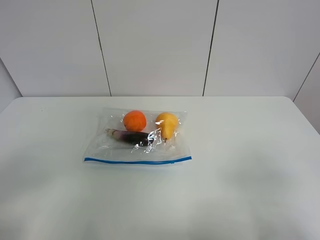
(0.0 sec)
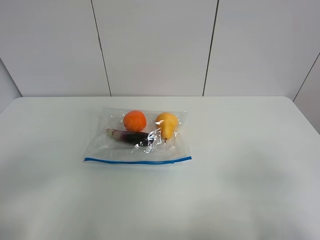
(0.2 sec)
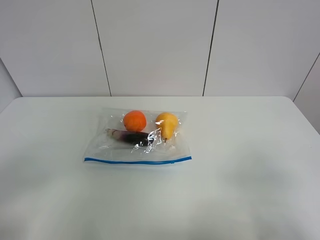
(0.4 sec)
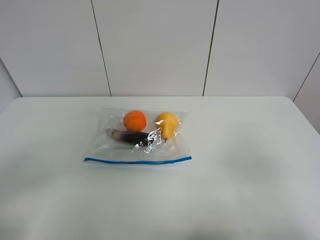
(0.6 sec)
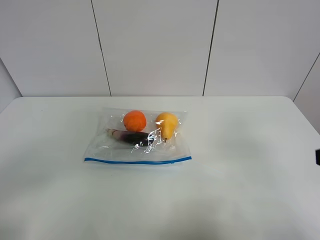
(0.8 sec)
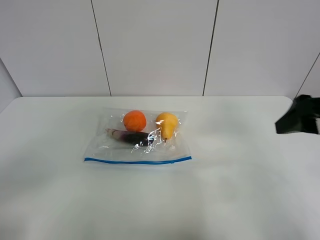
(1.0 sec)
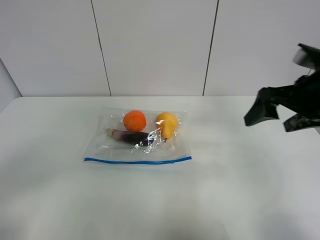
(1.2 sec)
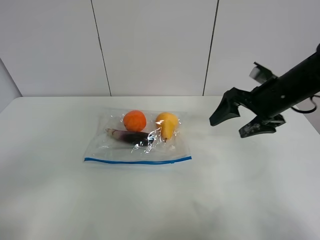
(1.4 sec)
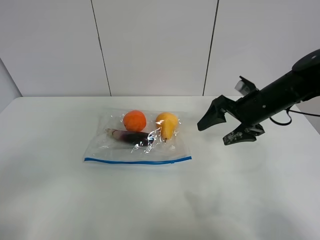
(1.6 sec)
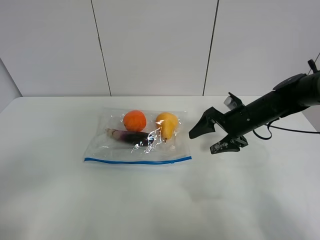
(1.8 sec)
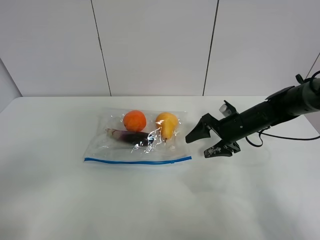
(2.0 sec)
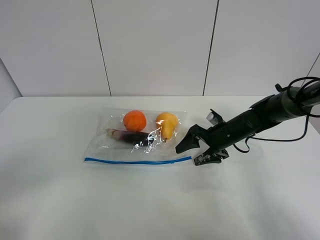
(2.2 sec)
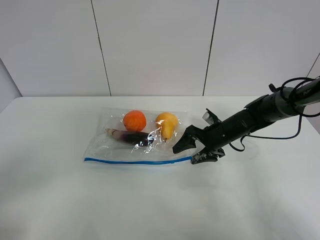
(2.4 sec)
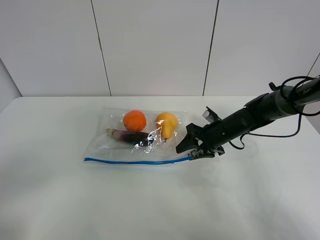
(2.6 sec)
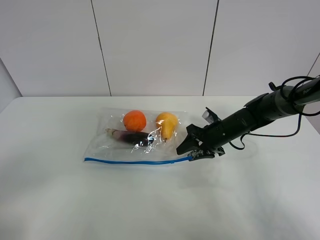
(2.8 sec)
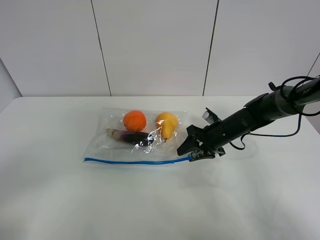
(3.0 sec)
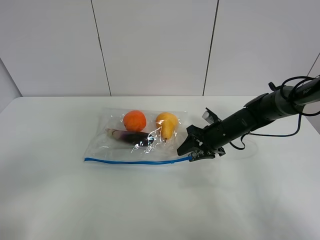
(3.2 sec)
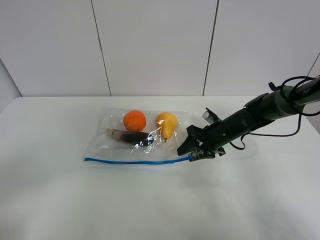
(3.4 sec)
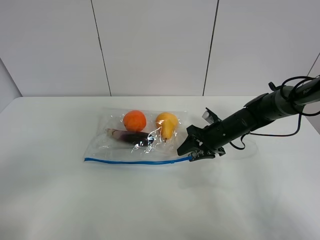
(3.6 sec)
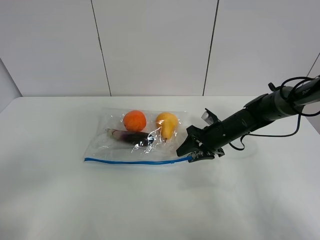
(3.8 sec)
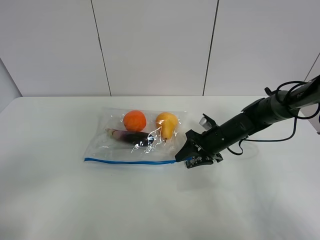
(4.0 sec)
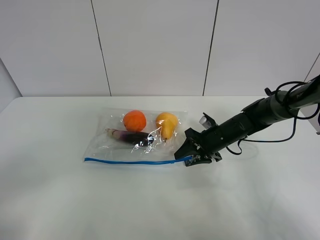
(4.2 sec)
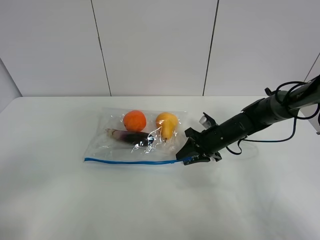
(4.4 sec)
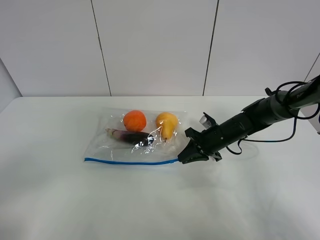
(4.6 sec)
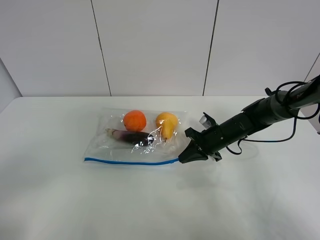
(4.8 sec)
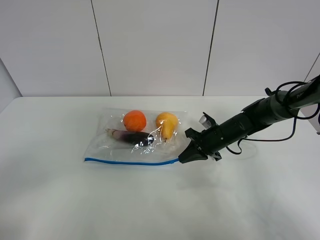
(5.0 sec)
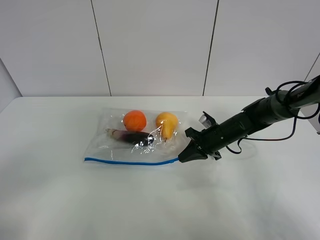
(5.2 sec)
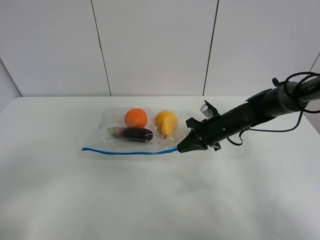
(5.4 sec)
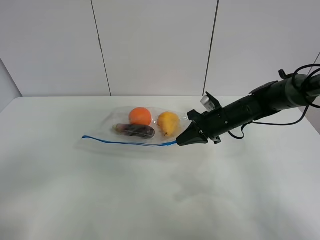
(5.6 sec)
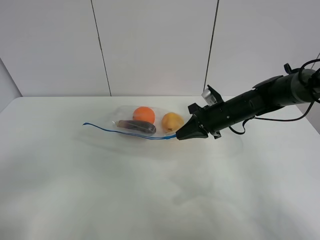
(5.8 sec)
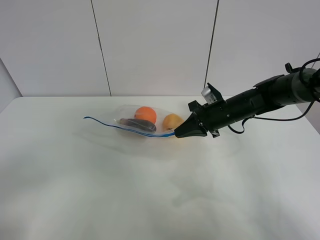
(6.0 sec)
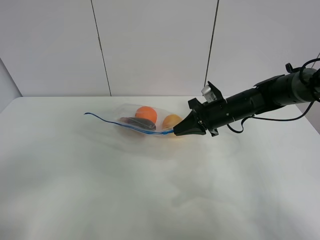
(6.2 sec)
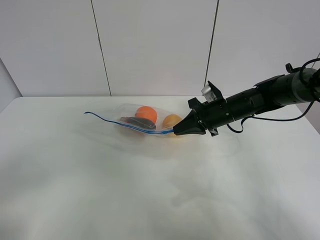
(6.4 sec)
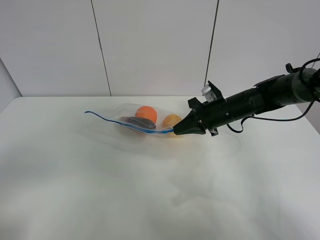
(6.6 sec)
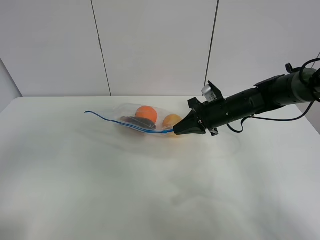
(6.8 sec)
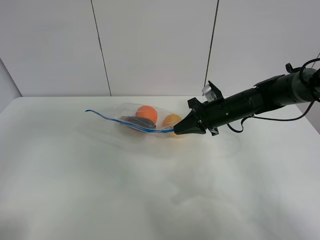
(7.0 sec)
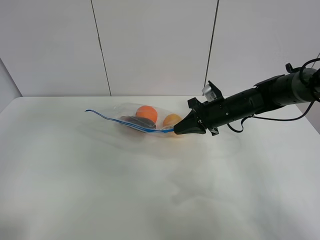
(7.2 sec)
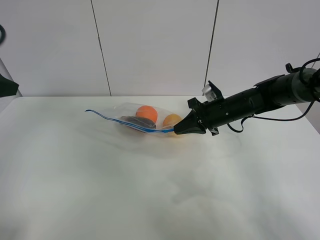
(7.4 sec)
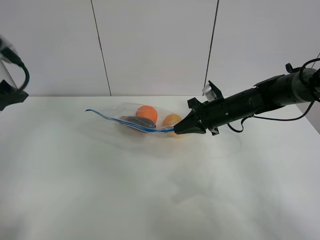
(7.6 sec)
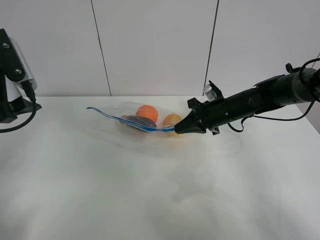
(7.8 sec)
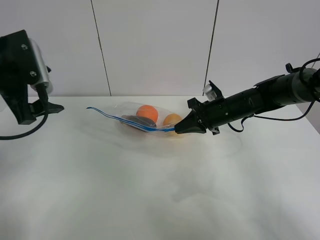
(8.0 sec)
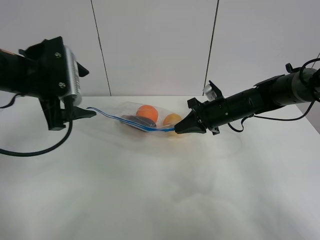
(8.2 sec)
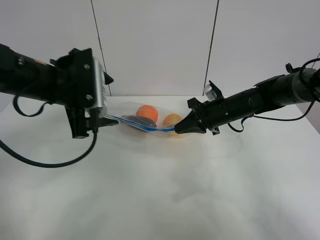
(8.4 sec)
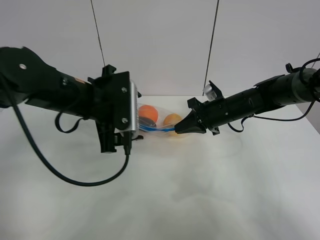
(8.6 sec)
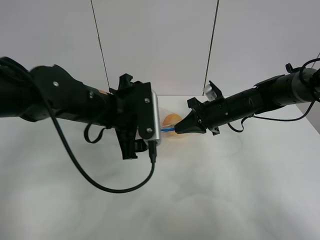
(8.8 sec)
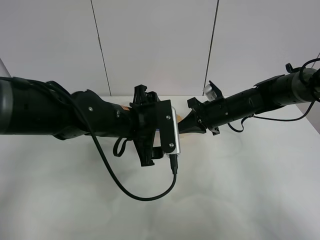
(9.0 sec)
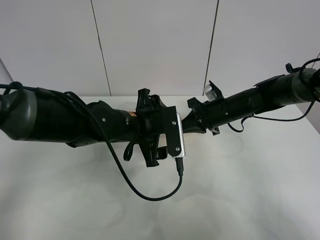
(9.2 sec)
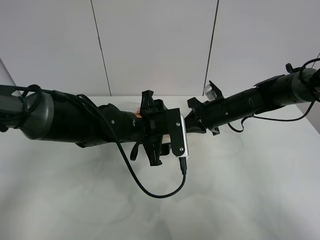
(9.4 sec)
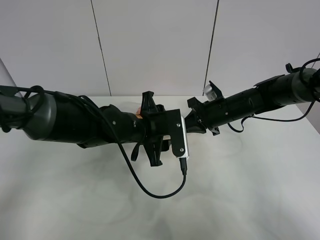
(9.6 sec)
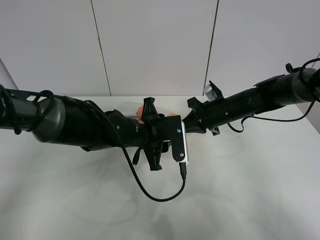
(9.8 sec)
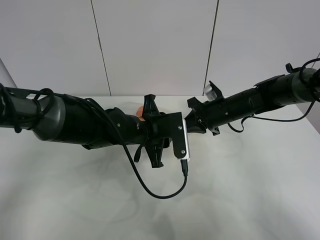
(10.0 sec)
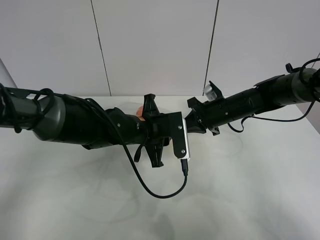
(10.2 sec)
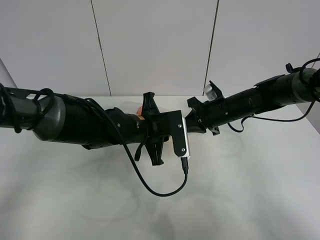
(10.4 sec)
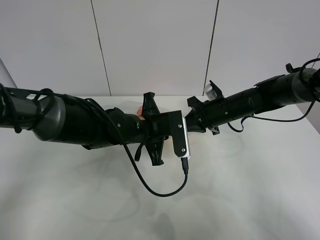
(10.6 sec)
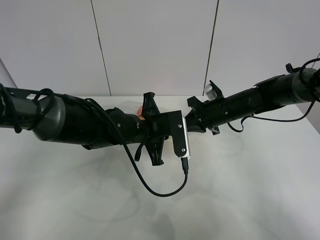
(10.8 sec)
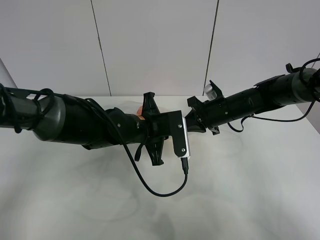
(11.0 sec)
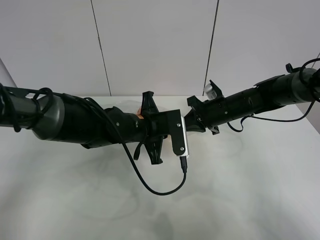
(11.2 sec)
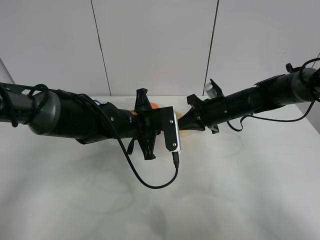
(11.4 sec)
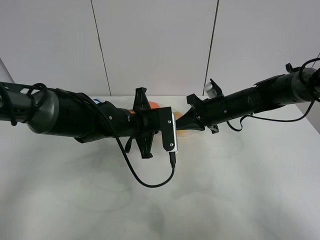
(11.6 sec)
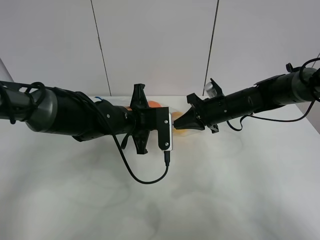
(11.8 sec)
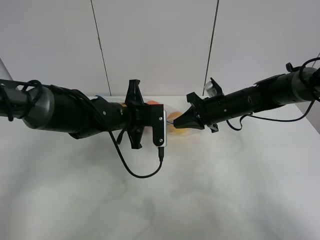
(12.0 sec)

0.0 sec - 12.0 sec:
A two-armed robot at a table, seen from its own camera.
Step, 0.0 sec - 4.8 sec: Grasp the fruit bag with right gripper.
Step, 5.0 sec - 6.4 sec: Lift the fruit bag with your right gripper.
0.0 sec - 1.6 sec: The right gripper travels forward by roughly 35 cm.
1.6 sec - 3.0 sec: The right gripper moves downward, some 10 cm, and closes.
3.0 sec - 4.4 sec: There are only small adjustments of the grippers.
4.4 sec - 6.0 sec: The right gripper moves upward, roughly 10 cm, and closes.
6.0 sec - 7.6 sec: The left gripper travels forward by roughly 25 cm.
7.6 sec - 9.0 sec: The left gripper travels to the right and downward by some 30 cm.
9.0 sec - 10.4 sec: The left gripper closes.
10.4 sec - 12.0 sec: The left gripper changes place by approximately 5 cm.

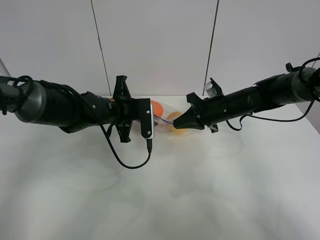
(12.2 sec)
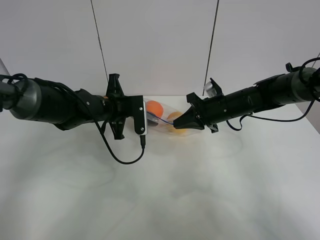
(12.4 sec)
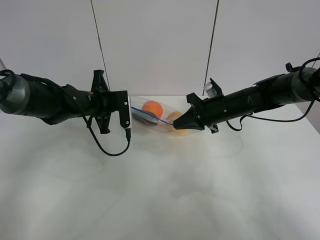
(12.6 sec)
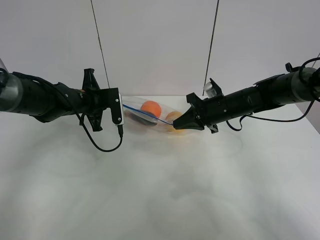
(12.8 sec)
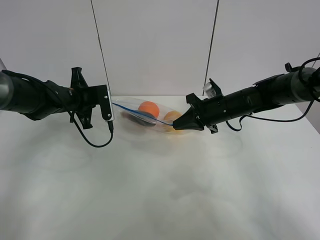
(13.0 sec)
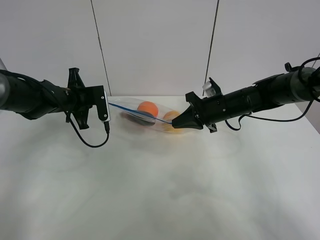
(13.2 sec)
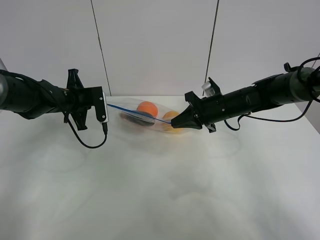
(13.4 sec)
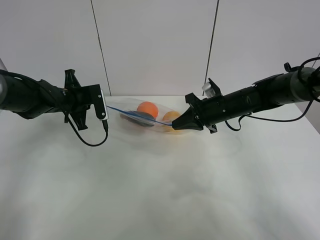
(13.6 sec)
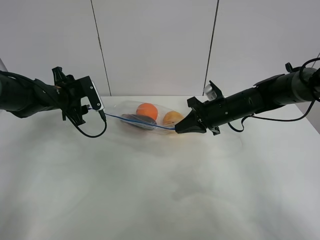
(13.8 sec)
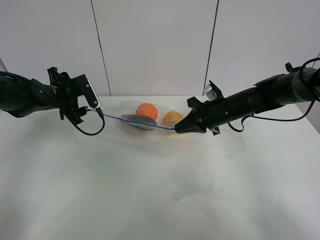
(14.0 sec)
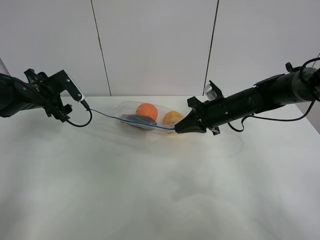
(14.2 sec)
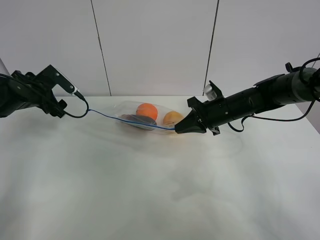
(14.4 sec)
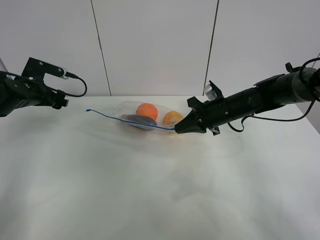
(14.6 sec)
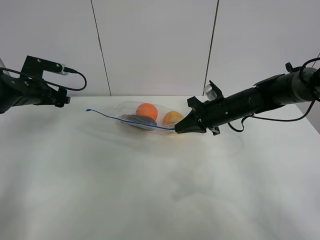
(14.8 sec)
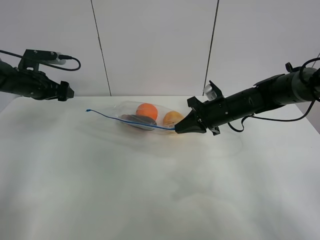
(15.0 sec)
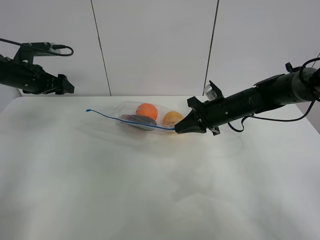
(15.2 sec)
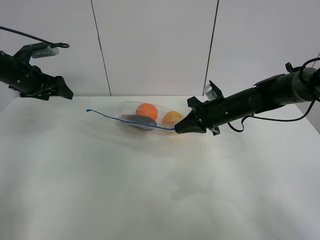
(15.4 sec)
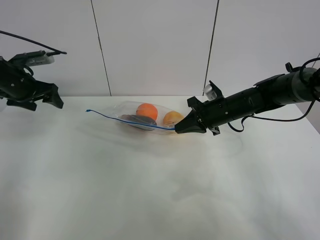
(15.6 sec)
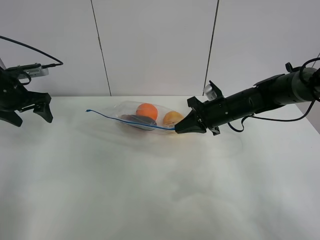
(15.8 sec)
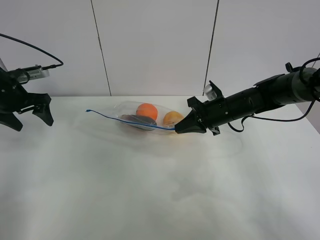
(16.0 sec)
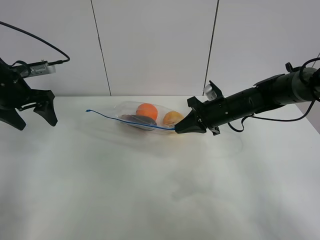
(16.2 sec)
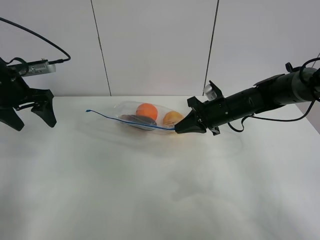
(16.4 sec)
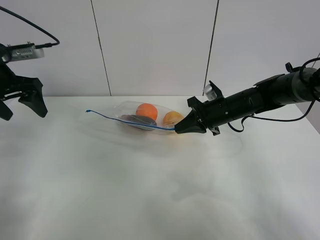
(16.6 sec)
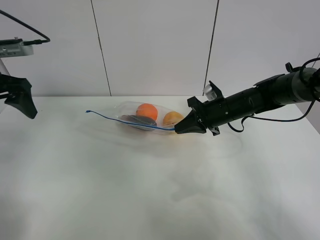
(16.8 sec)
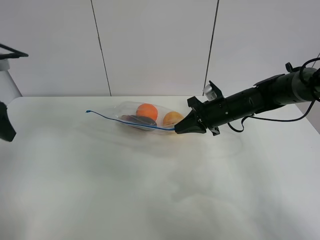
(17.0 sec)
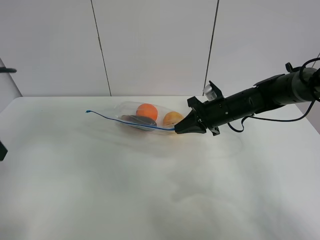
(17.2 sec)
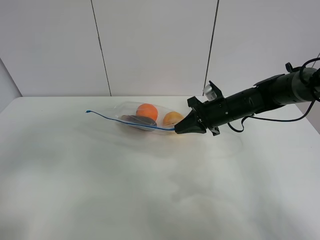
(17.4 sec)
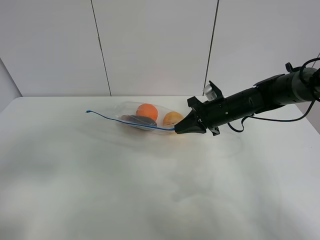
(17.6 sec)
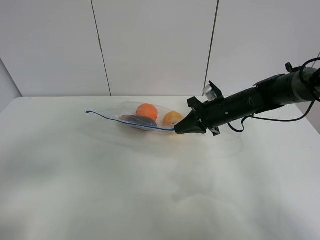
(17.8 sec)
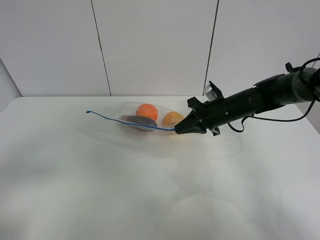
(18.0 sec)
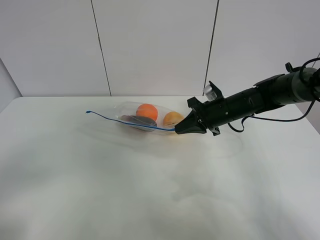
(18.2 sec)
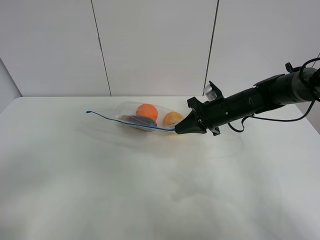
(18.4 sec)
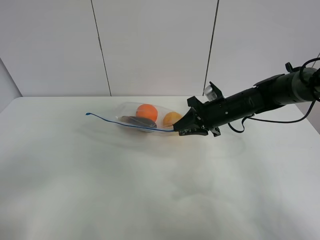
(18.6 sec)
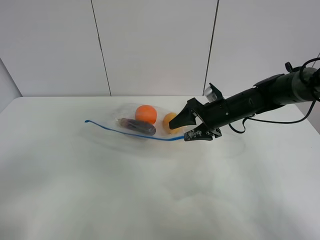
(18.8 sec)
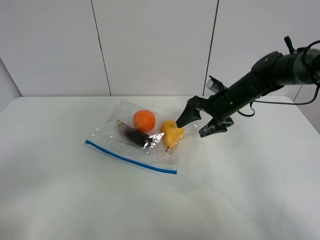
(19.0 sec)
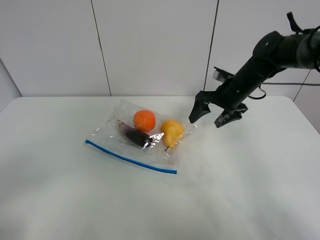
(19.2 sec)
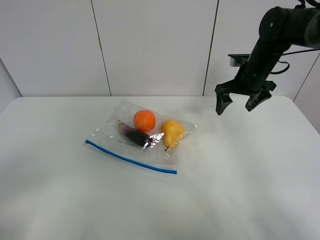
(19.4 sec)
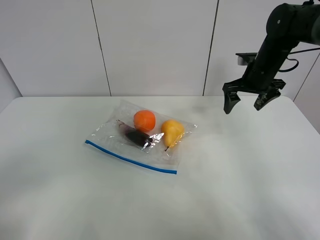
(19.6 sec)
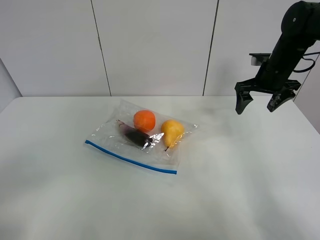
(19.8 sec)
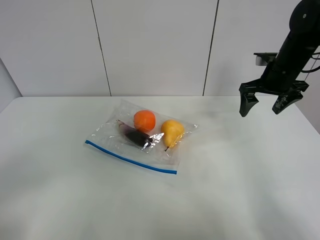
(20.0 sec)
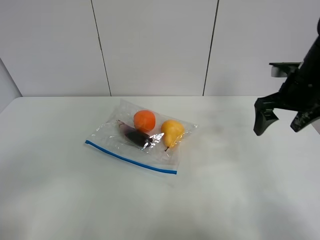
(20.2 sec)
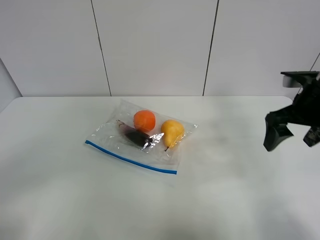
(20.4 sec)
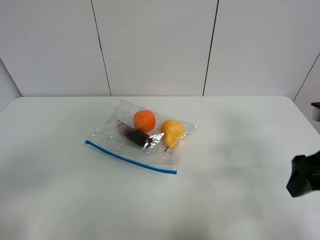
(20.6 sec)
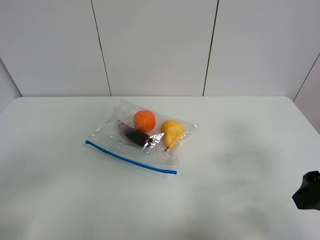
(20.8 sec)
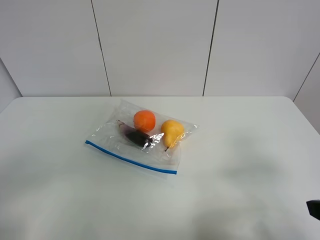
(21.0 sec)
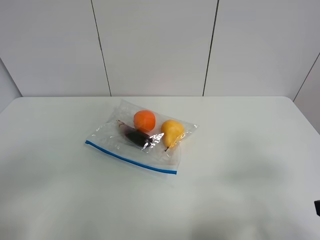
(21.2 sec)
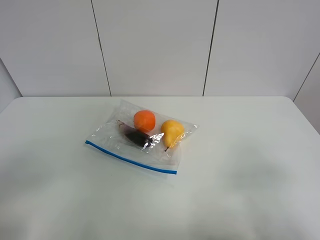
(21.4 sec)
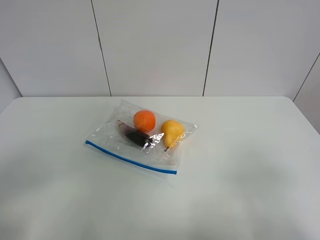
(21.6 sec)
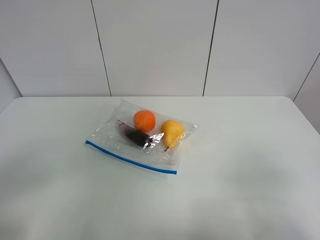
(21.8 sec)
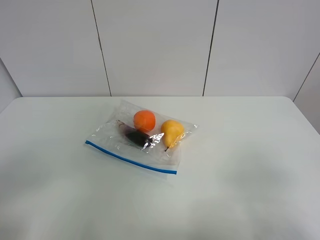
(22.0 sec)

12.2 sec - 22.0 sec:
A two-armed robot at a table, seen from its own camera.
12.2 sec - 13.6 sec: The left gripper moves to the left, about 15 cm.
13.6 sec - 15.0 sec: The left gripper moves to the left, some 10 cm, and opens up.
15.0 sec - 16.4 sec: The left gripper heads backward and upward, covering some 10 cm.
16.4 sec - 17.8 sec: The left gripper shifts about 30 cm backward.
17.8 sec - 19.2 sec: The right gripper shifts about 5 cm upward, and opens. Meanwhile the left gripper moves backward, some 5 cm.
19.2 sec - 20.6 sec: The right gripper shifts roughly 25 cm backward.
20.6 sec - 22.0 sec: The right gripper moves backward, approximately 15 cm.
